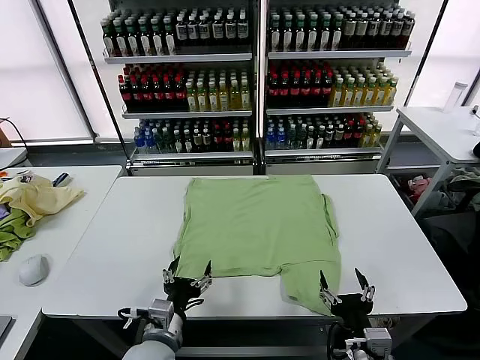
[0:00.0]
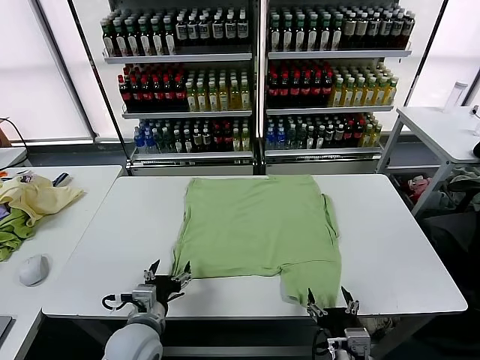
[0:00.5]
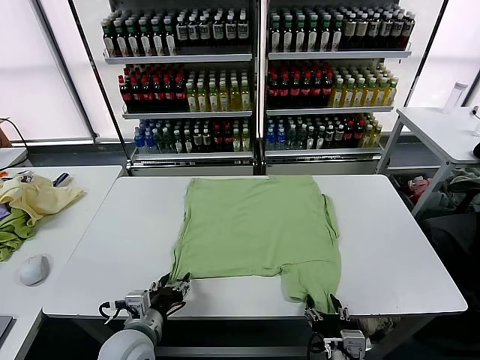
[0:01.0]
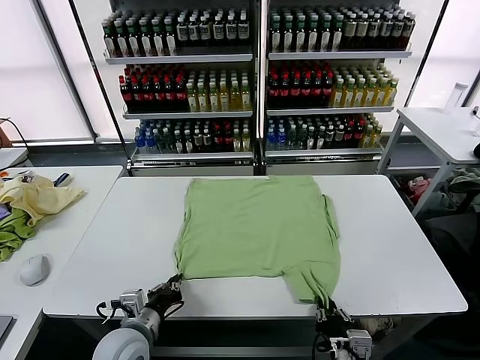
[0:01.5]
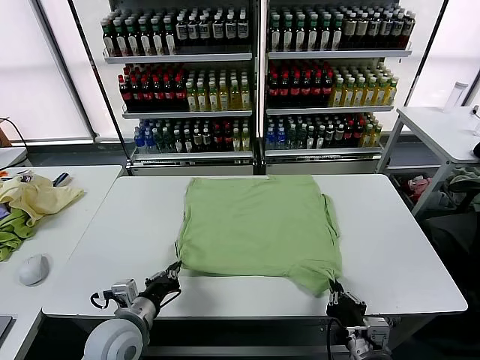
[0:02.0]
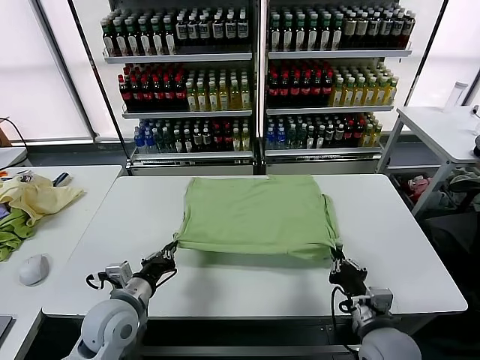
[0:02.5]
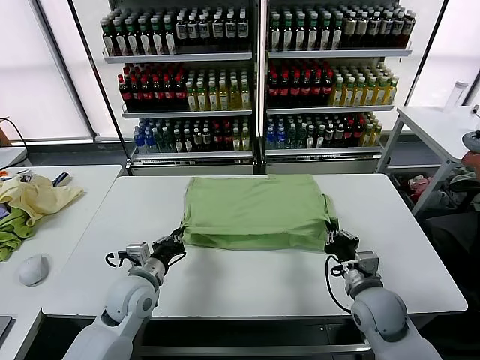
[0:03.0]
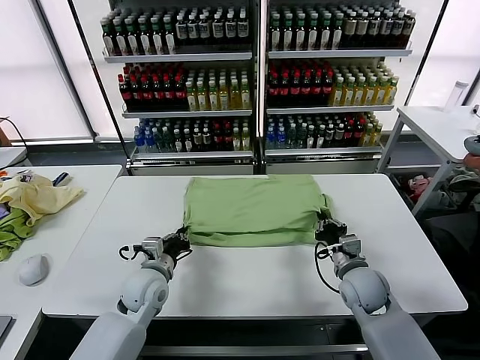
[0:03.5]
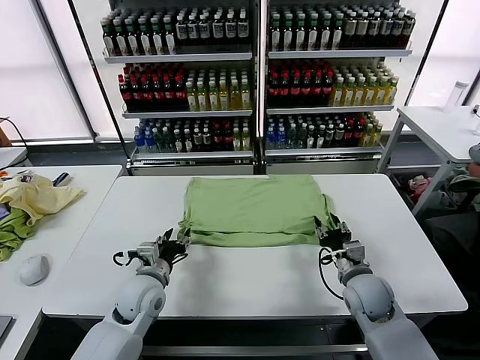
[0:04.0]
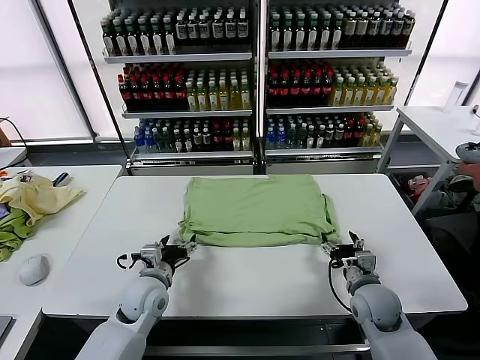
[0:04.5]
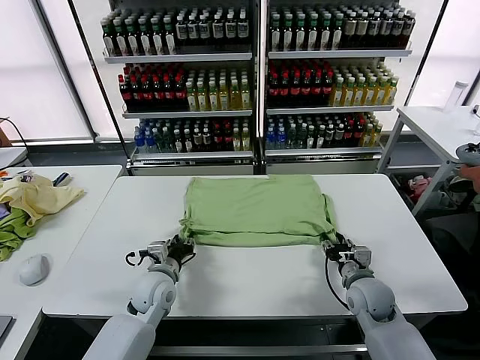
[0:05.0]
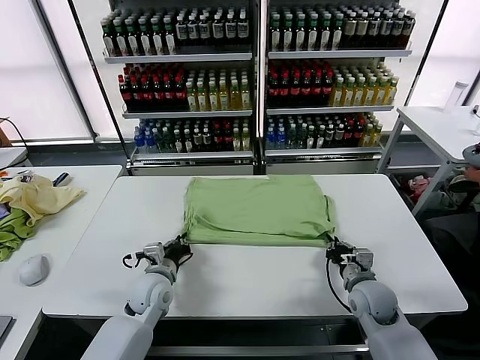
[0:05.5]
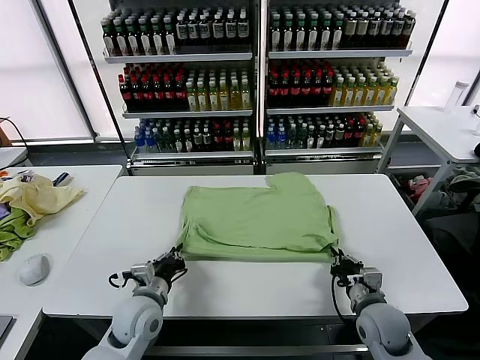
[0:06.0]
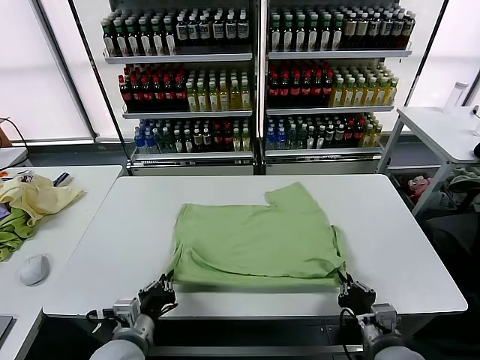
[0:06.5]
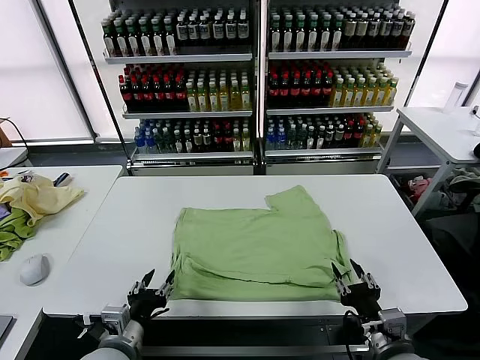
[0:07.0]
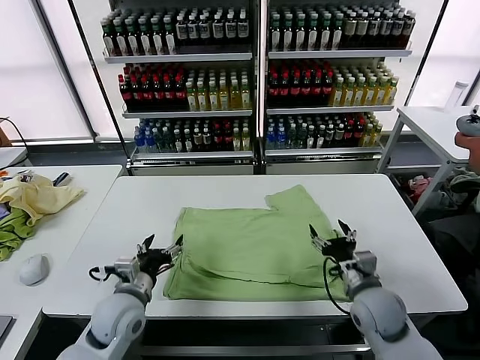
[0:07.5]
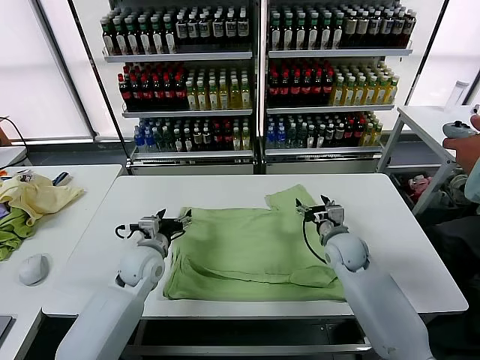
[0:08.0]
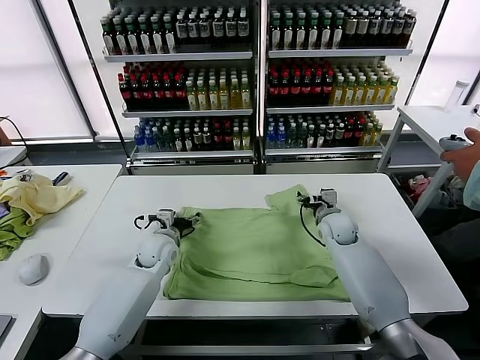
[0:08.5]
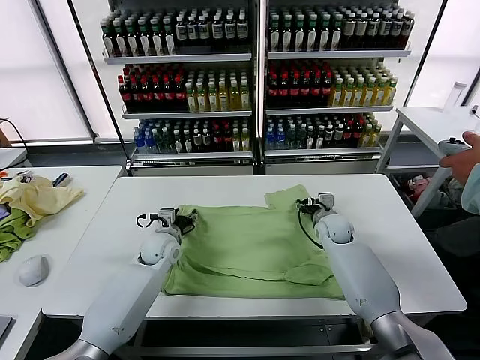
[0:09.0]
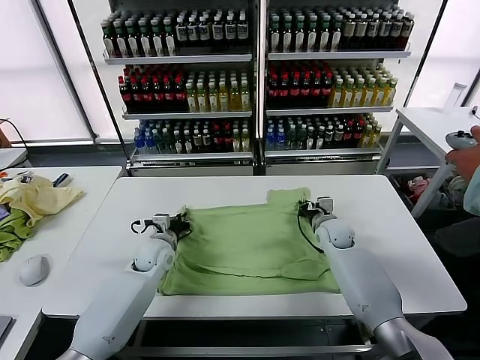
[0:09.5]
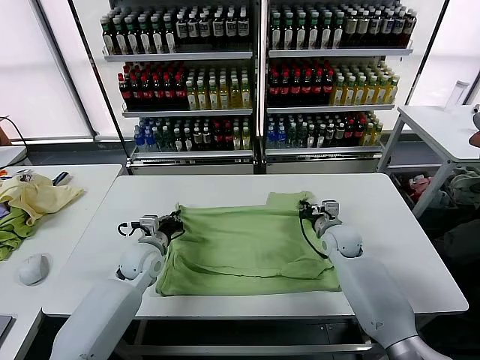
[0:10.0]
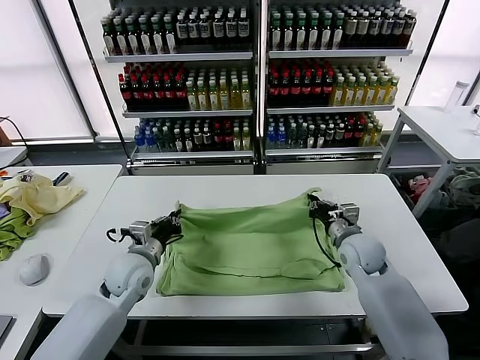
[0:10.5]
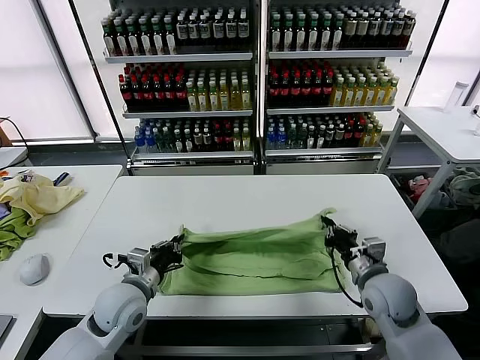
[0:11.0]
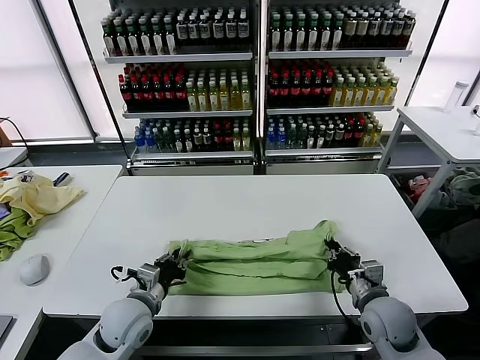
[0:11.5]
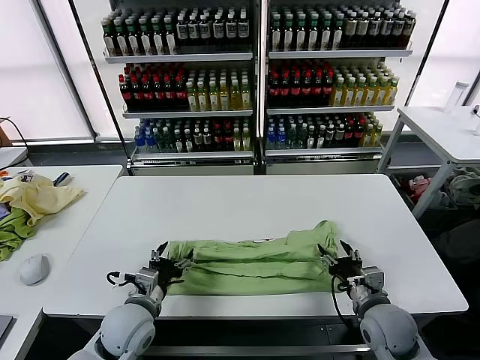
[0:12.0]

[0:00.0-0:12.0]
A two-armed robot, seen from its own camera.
Task of the whole recording: fold and organize the clothes.
Step, 0.0 to 1.5 s: use both grippers simultaneously to clamp the lower edge of the clothing fabric.
Step, 2.0 to 4.0 s: use both grippers to drag the lower edge of the fabric forward and fold it over the upper edge.
Step, 4.5 to 6.5 s: Drag the clothes downward with both gripper.
Step, 7.0 to 9.5 s: use both grippers simultaneously to clamp the upper edge of the clothing fabric.
Step, 10.0 to 12.0 s: use both grippers to drag the upper edge of the fabric backward and fold it over the lower edge.
2.0 to 4.0 s: The left gripper goes approximately 10 cm forward, and opens up. The right gripper travels forward by approximately 15 cm, and opens its fingers.
4.0 to 6.0 s: The left gripper closes up. Meanwhile the right gripper moves backward, roughly 5 cm, and closes up.
6.0 to 8.0 s: The left gripper shifts about 10 cm forward, and opens up. Meanwhile the right gripper moves forward, about 20 cm, and opens.
8.0 to 10.0 s: The left gripper closes, while the right gripper closes its fingers.
10.0 to 12.0 s: The grippers both shift backward by approximately 20 cm. The left gripper opens up, while the right gripper opens up.

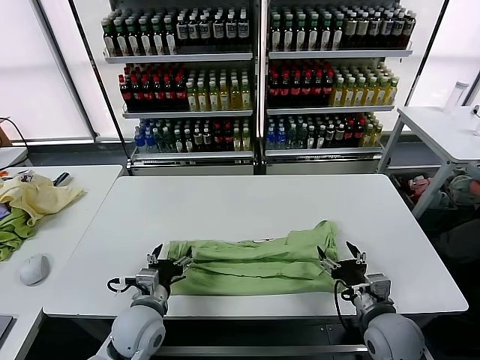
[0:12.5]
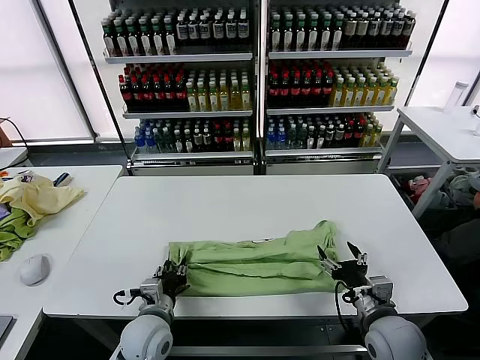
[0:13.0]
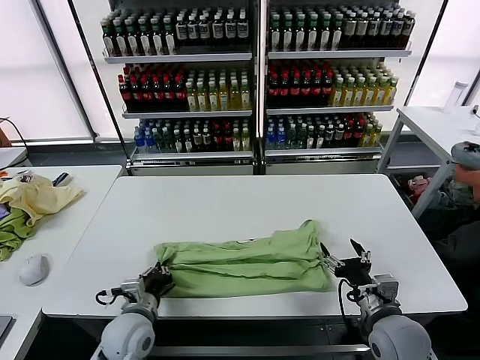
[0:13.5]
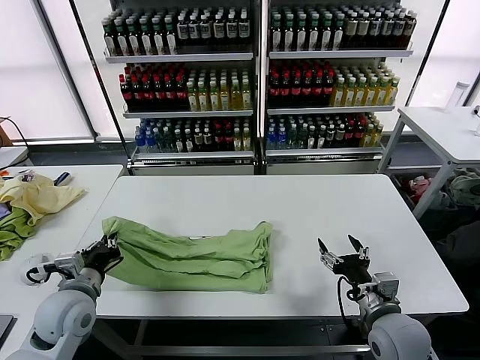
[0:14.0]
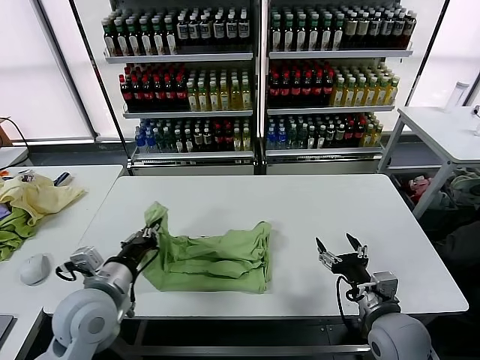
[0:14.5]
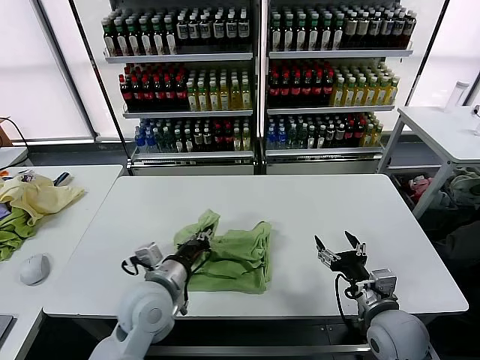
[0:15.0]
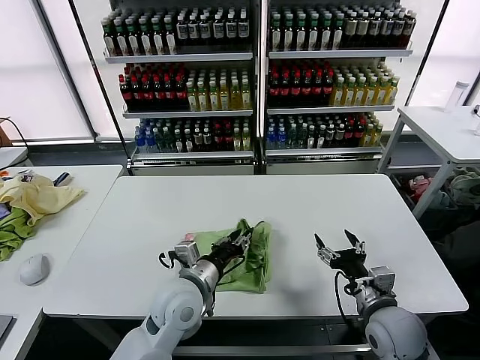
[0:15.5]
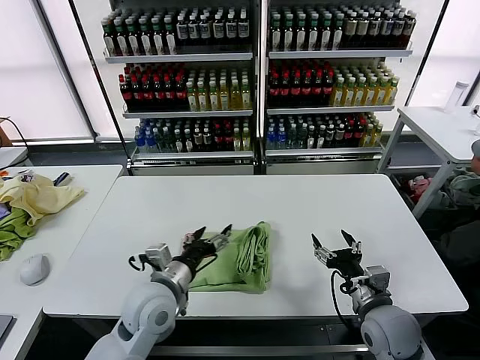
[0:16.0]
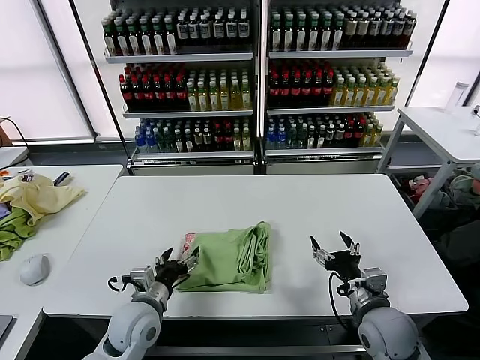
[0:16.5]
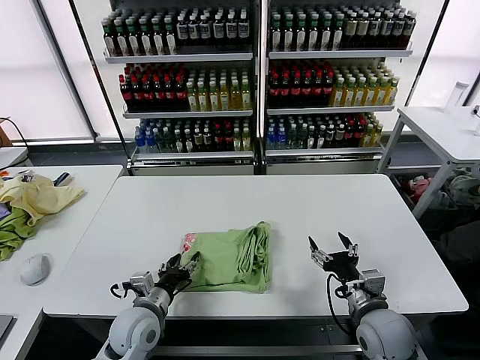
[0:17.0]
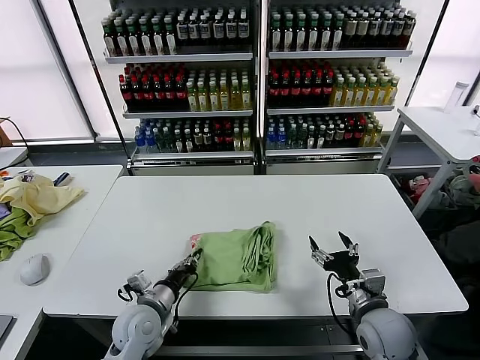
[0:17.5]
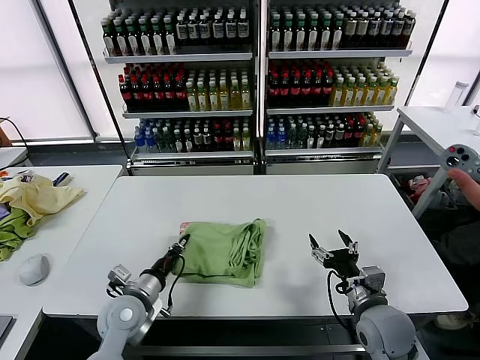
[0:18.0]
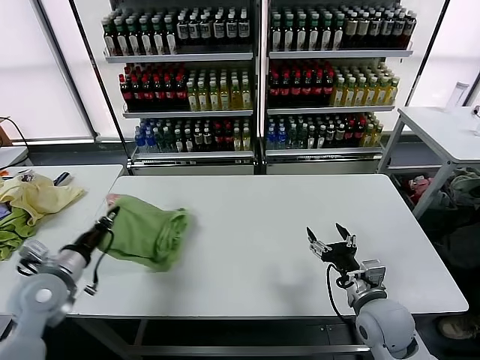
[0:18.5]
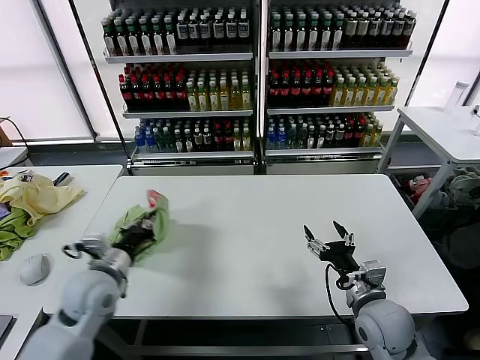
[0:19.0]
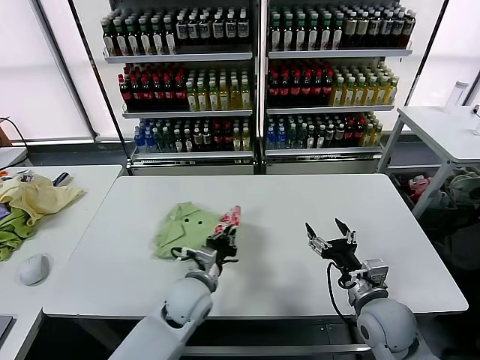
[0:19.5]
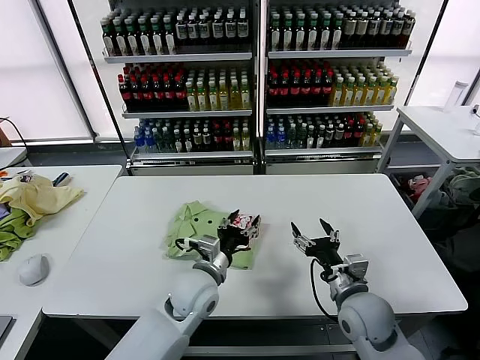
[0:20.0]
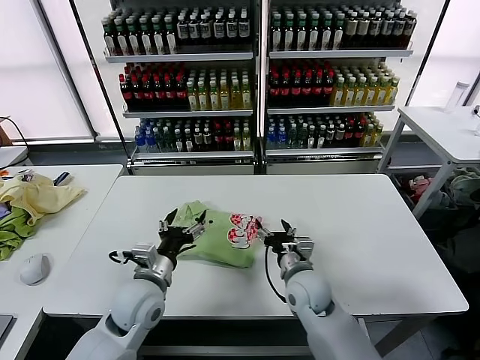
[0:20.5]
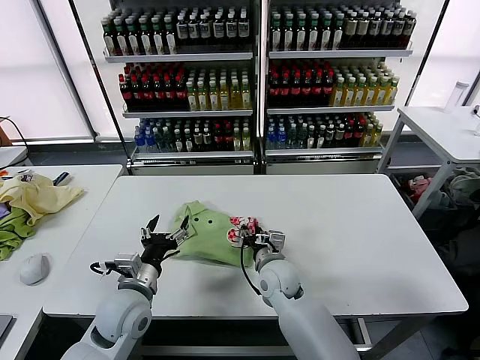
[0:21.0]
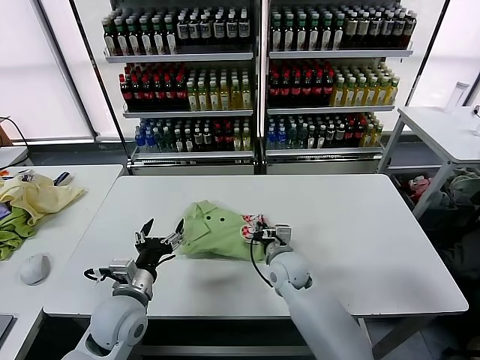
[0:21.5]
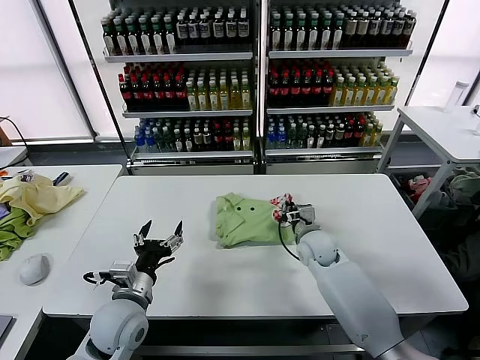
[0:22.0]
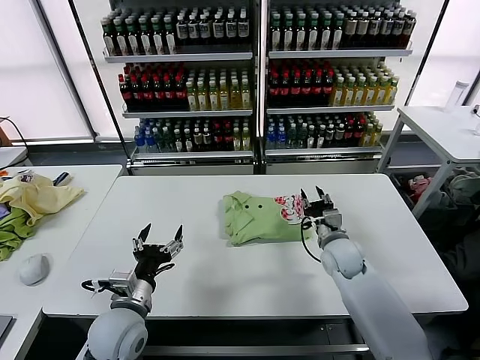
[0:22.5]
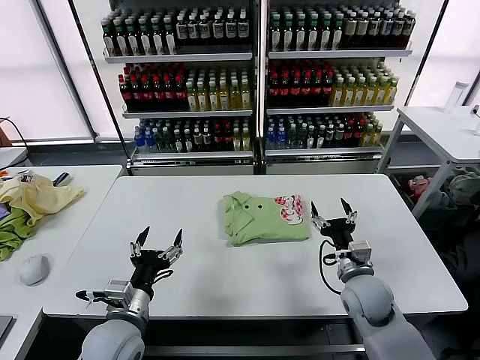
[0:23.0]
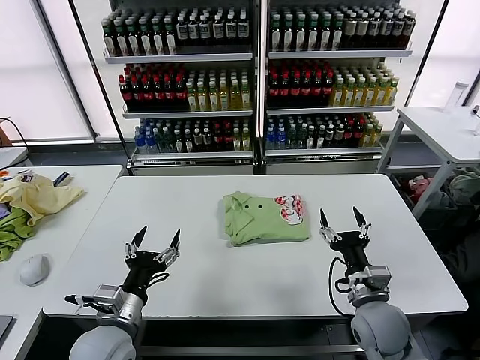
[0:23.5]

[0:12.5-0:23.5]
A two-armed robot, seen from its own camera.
Task of the whole recording: fold and organize the clothes.
Step, 13.5 to 15.5 s: use the left gripper to drag the left edge of the fabric to the left and folds it over the right edge.
Step, 16.0 to 19.5 s: Flip the folded clothes over with left gripper.
Step, 20.0 to 22.0 s: Drag the clothes to the center of the table.
12.5 to 14.5 s: The left gripper goes roughly 10 cm upward and to the left, and closes up.
14.5 to 16.0 s: The left gripper is displaced to the right by approximately 10 cm, and opens up.
16.0 to 18.0 s: The left gripper goes approximately 10 cm to the left and downward, and closes.
18.0 to 20.0 s: The left gripper goes roughly 15 cm to the right, and opens up.
20.0 to 21.5 s: The left gripper goes approximately 15 cm to the left and backward. The right gripper is displaced to the left and forward by approximately 20 cm, and closes.
21.5 to 23.5 s: The left gripper goes approximately 5 cm backward. Meanwhile the right gripper travels to the right and backward by about 20 cm, and opens its fingers.

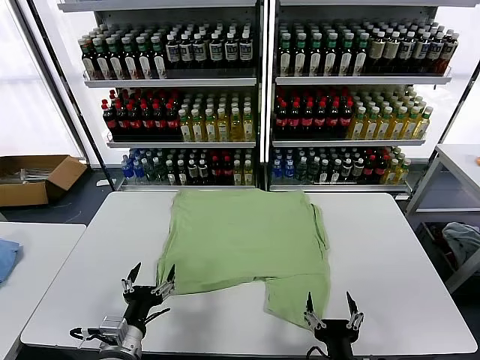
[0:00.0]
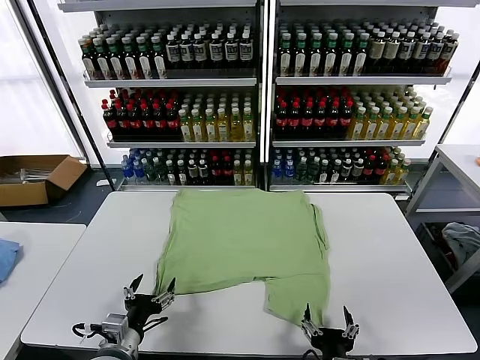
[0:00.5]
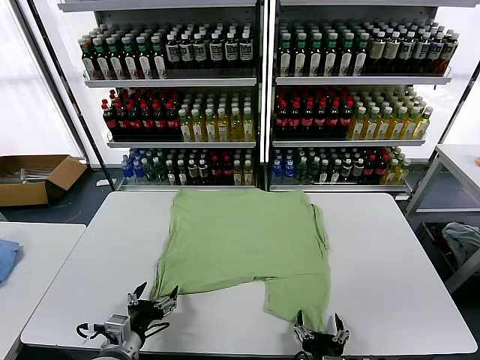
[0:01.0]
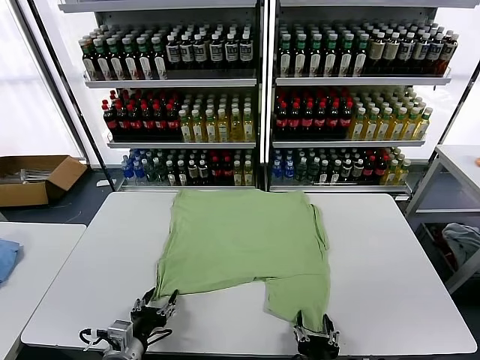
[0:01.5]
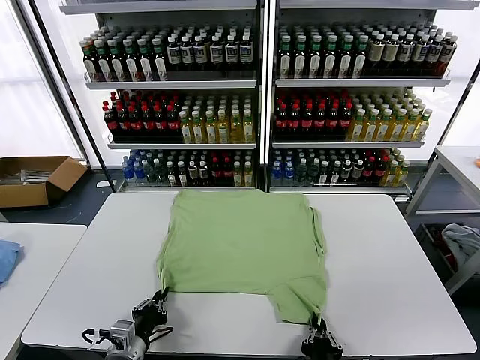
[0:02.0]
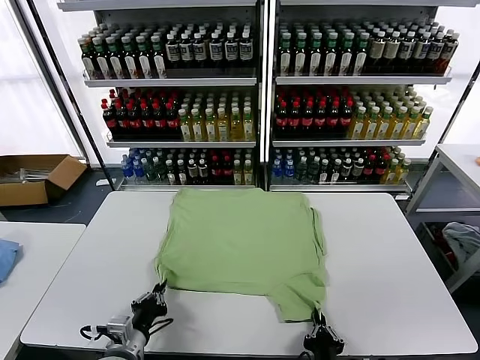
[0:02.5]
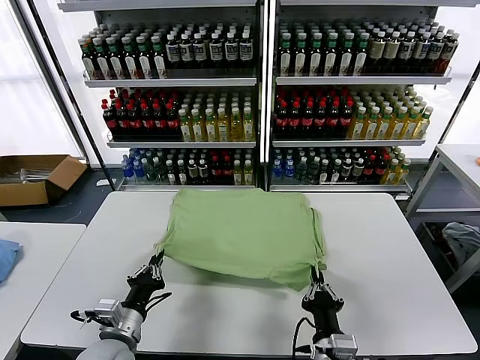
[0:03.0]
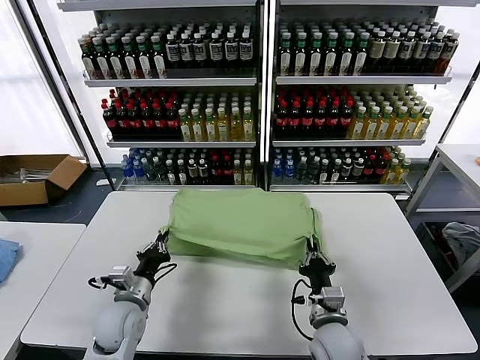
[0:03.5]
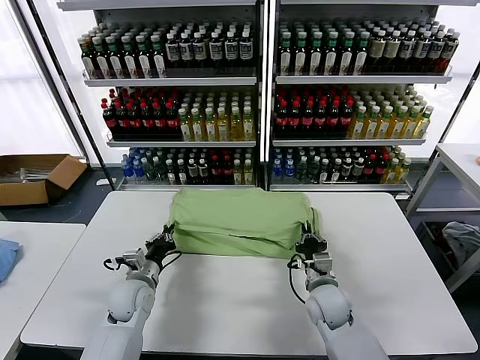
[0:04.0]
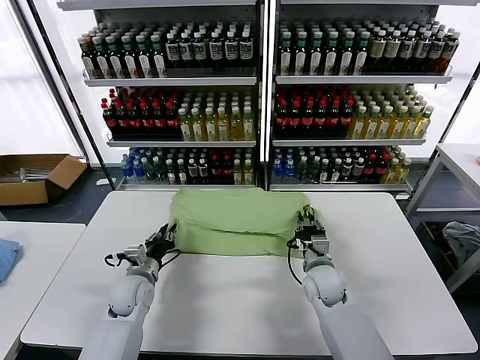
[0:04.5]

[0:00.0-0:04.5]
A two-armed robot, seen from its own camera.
Task of the whole recording: fold and organize the clothes.
Step, 0.0 to 2.0 s: use both grippers simultaneously to clamp the lower edge of the clothing fabric.
2.0 to 4.5 s: The left gripper travels forward by some 20 cm; the right gripper heads forward, covering approximately 30 cm, and opens its fingers.
